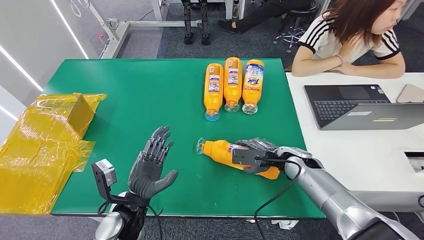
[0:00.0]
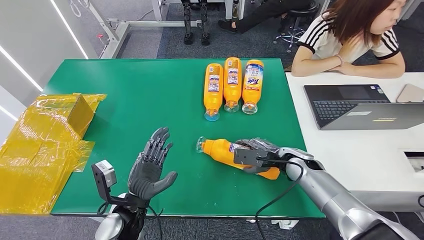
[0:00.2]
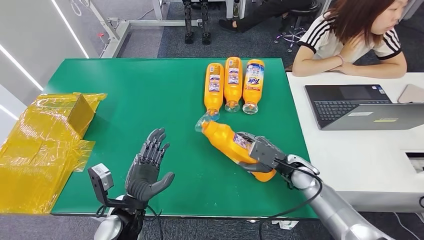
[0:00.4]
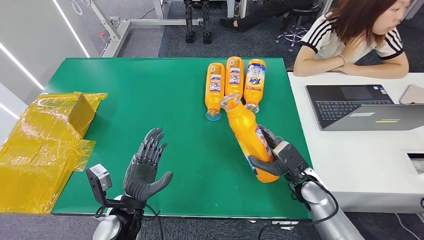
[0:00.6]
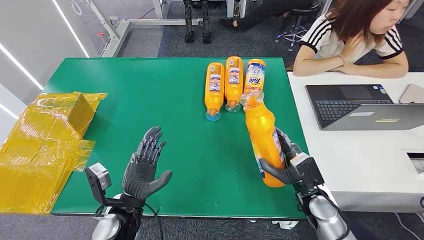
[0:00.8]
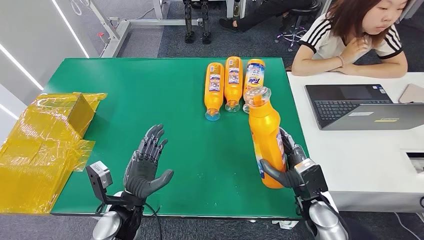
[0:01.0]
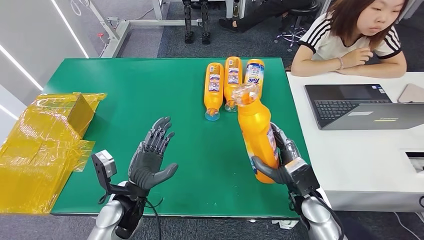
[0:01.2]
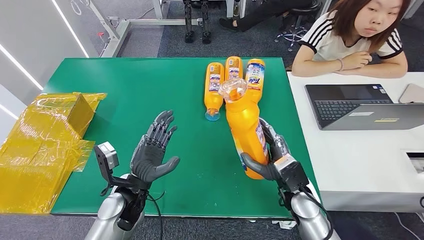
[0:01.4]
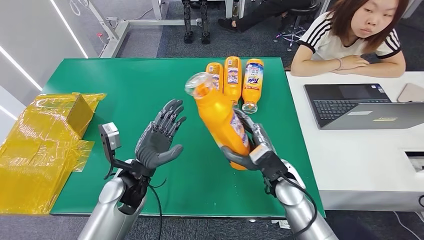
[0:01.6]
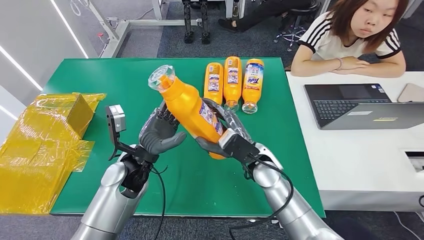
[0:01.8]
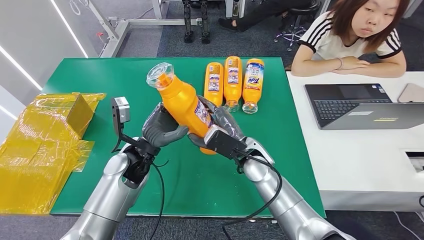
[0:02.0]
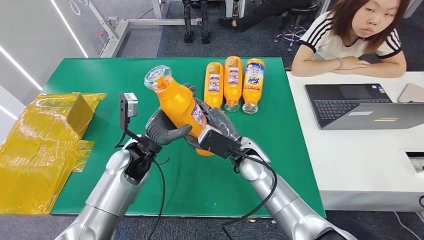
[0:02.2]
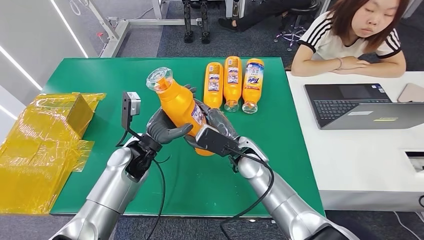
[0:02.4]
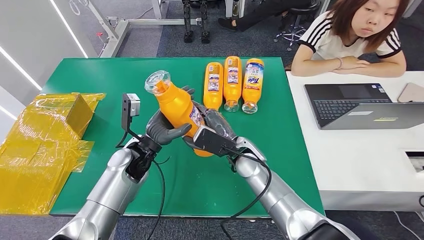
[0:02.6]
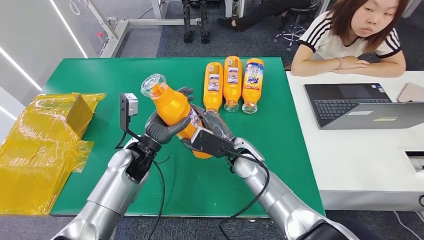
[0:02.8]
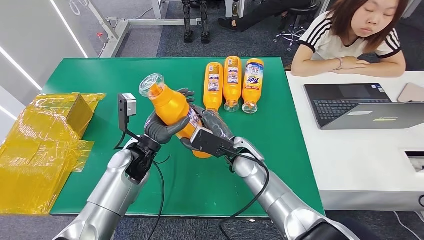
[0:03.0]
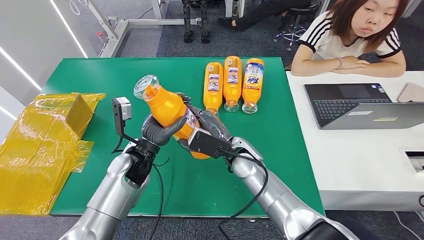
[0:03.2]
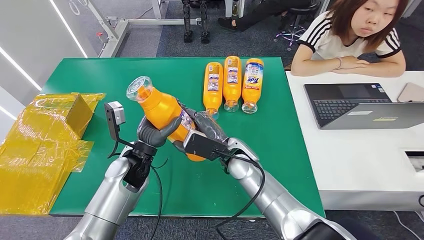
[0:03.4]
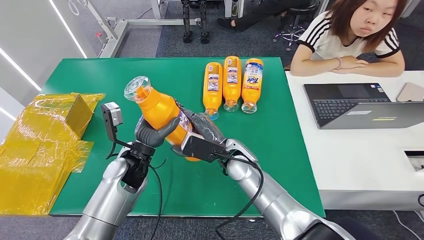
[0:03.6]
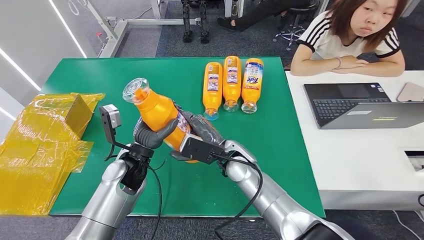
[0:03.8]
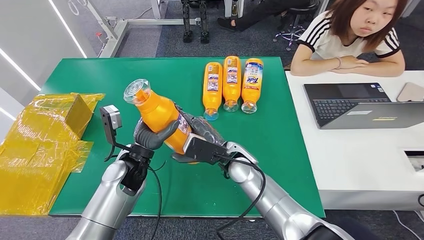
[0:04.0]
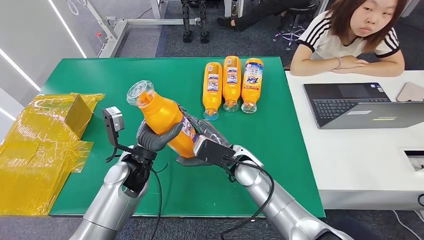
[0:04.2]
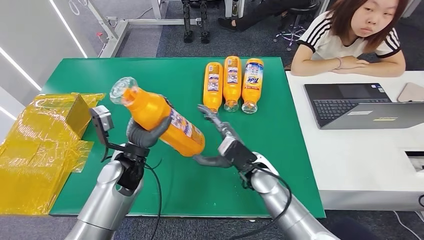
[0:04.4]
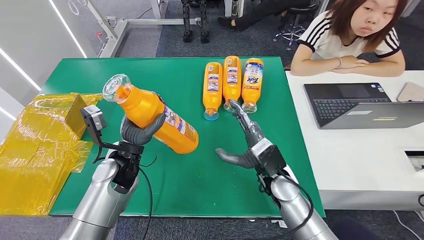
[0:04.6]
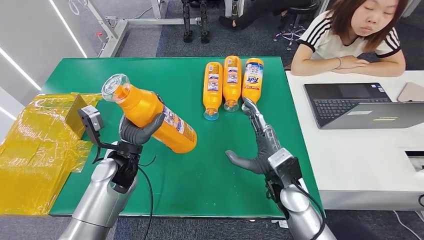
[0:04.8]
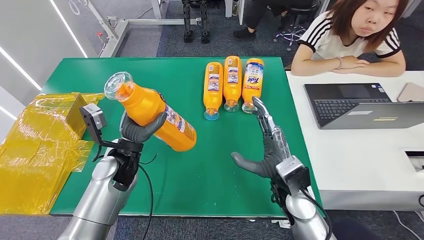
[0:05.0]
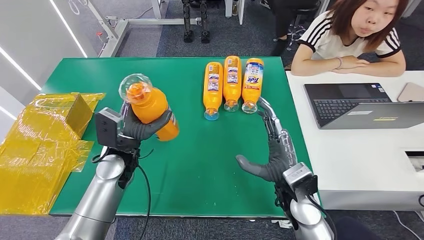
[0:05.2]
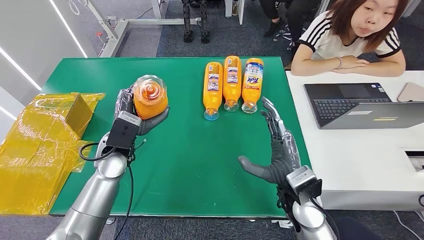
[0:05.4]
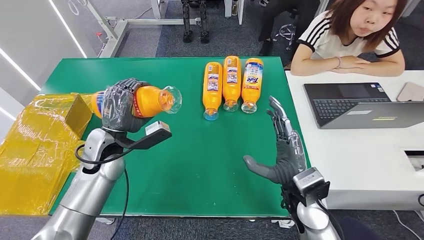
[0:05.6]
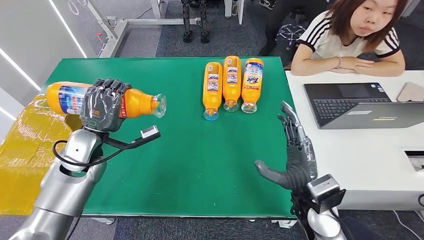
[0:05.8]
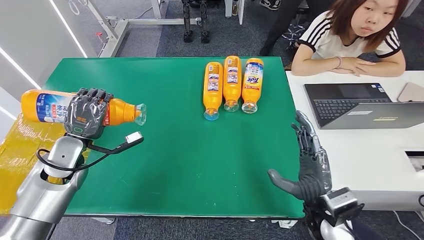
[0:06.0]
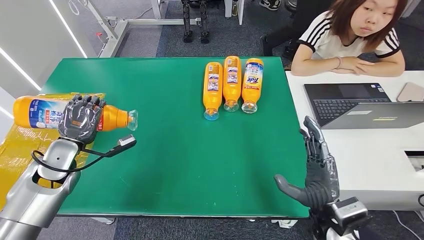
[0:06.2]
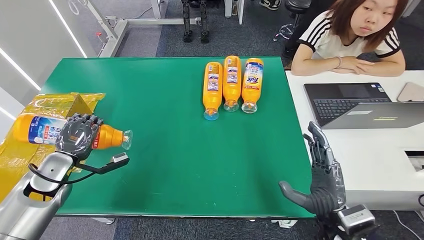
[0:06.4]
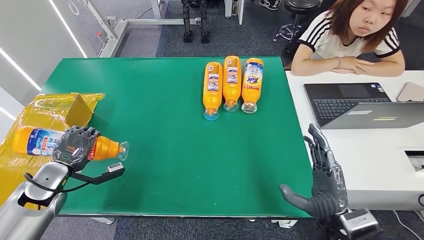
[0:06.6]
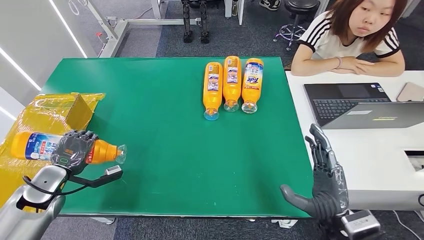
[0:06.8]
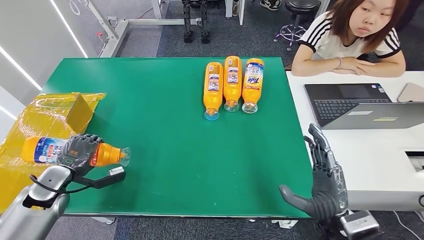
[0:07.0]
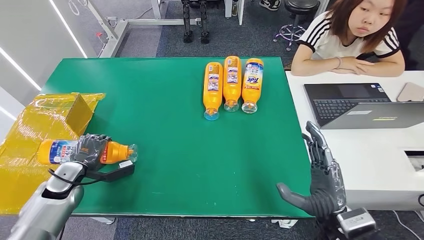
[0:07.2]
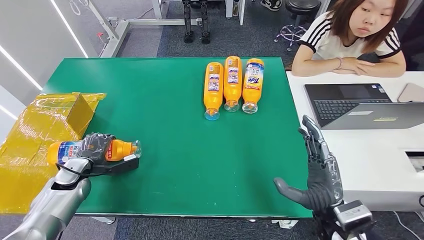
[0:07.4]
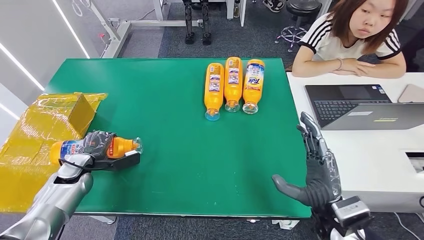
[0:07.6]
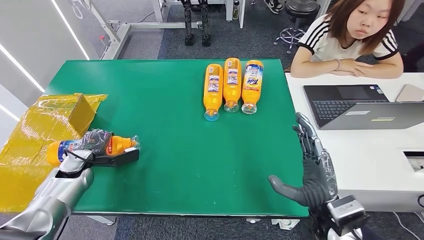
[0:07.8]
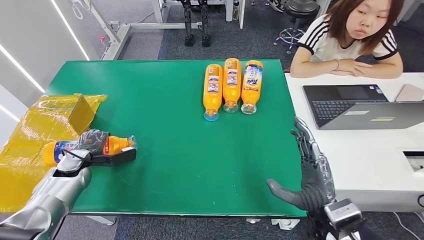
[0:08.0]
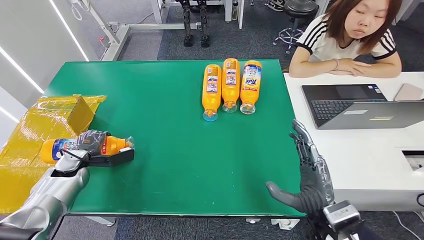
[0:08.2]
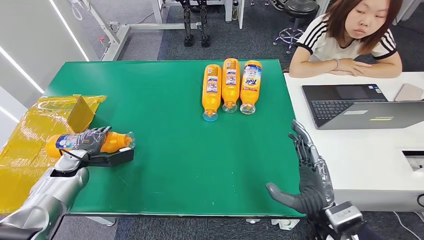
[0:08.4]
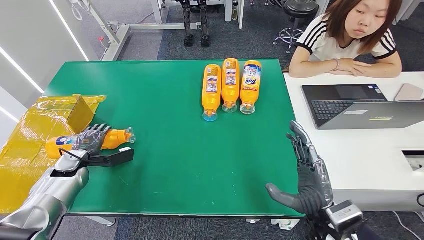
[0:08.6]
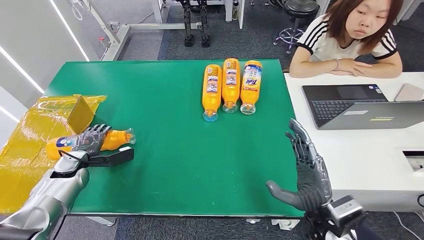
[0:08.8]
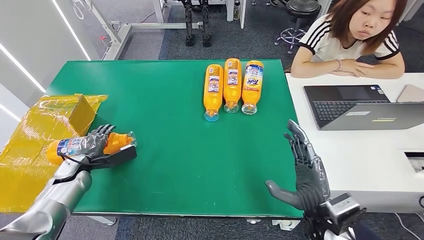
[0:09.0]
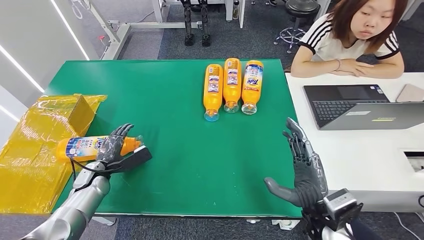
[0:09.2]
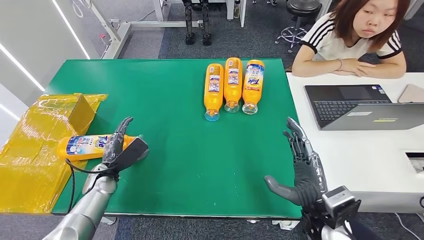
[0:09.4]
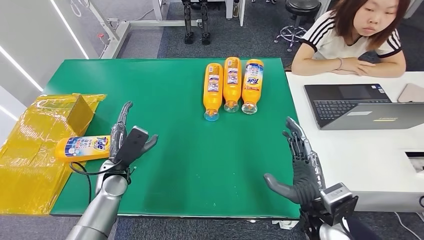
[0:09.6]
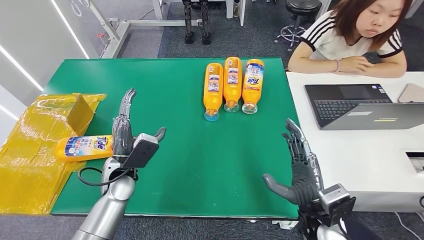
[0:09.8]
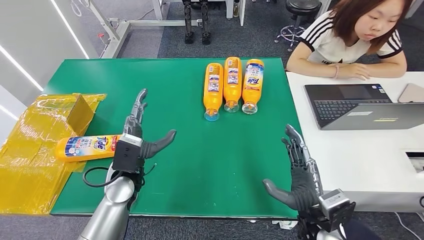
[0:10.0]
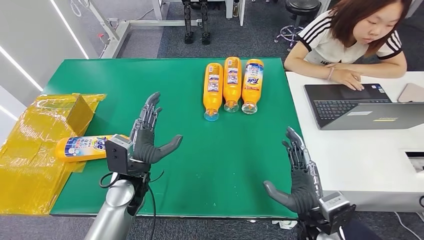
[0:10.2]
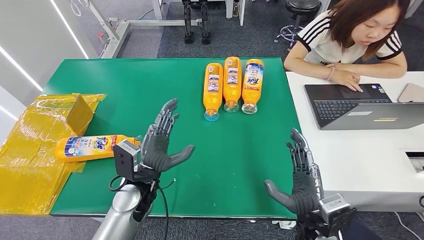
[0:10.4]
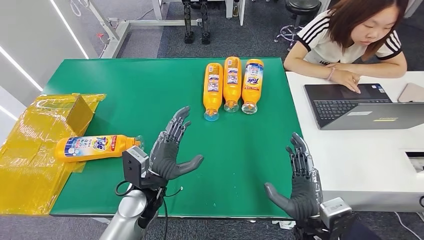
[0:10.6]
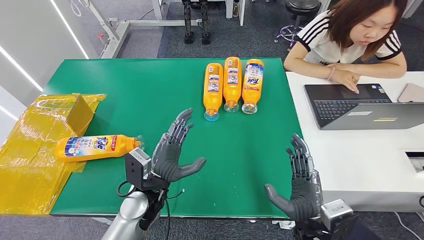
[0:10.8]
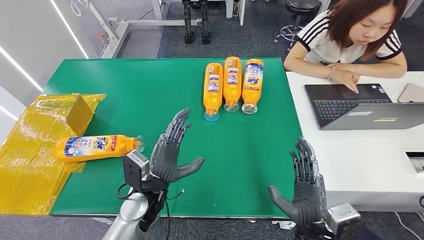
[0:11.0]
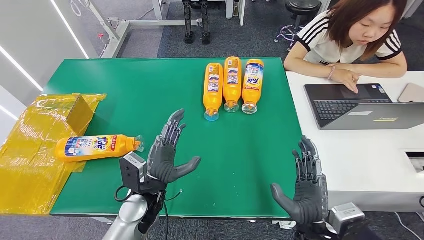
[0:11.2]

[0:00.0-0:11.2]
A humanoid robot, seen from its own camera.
Step, 0:00.0 to 0:03.4: Pick up the bottle from the table.
Step, 0:03.8 to 0:11.2: Turn the bottle to the front side.
0:01.6 to 0:03.2: The left hand heads forward, covering about 5 cm. Meanwhile the right hand shifts about 10 cm to the left and forward.
0:03.2 to 0:04.8: The right hand moves to the right and backward, about 10 cm.
0:09.6 to 0:11.2: The right hand moves some 5 cm. The left hand travels to the right and backward by approximately 15 cm.
